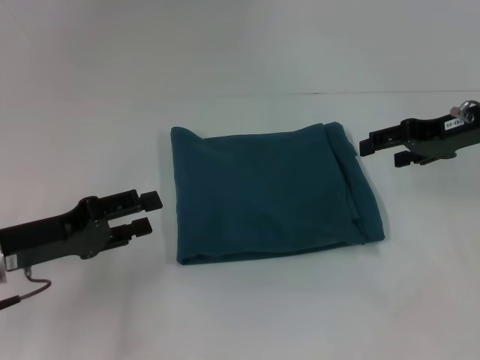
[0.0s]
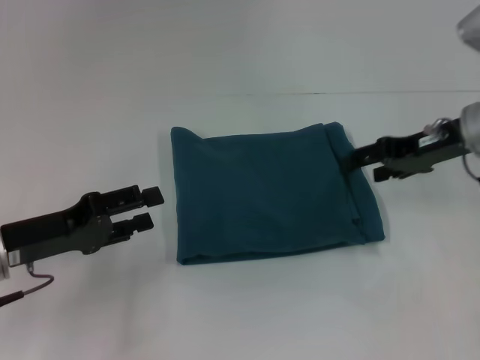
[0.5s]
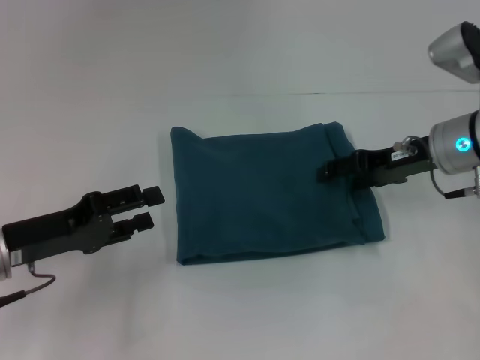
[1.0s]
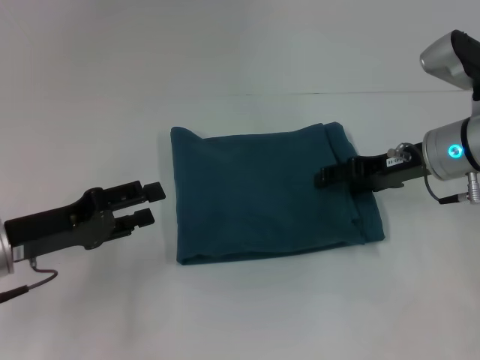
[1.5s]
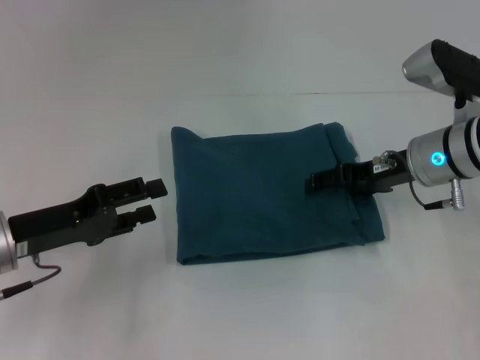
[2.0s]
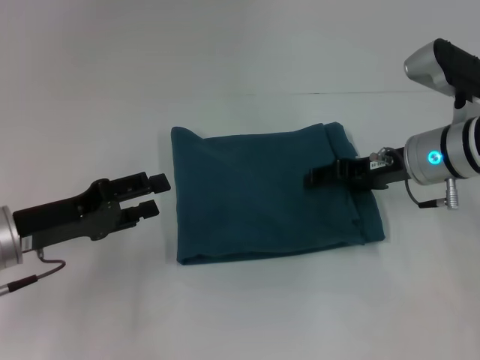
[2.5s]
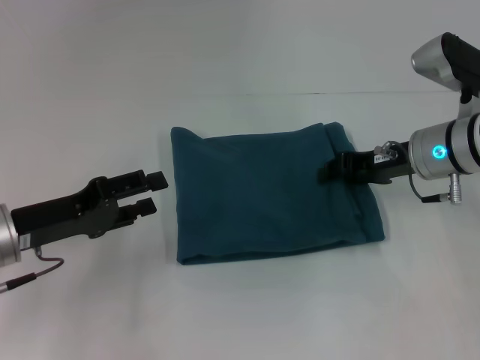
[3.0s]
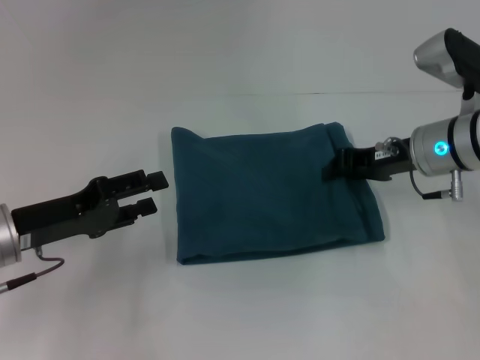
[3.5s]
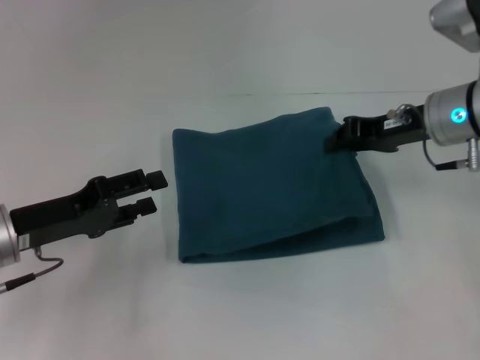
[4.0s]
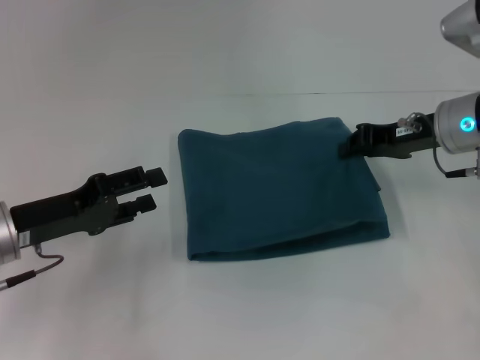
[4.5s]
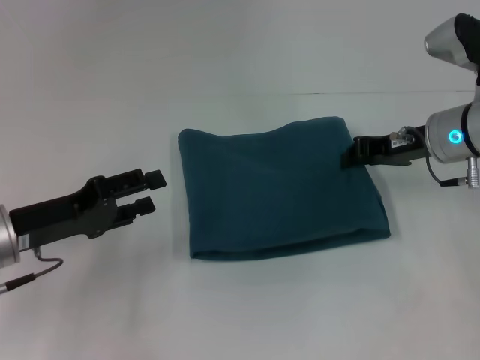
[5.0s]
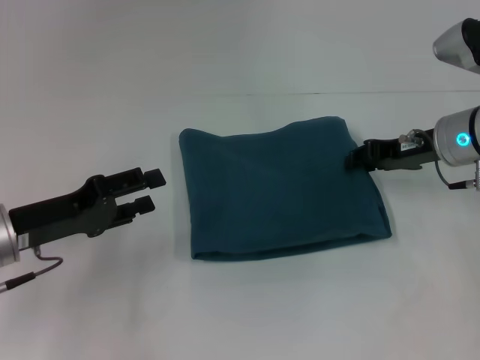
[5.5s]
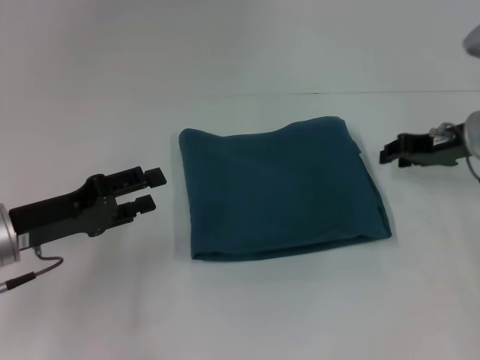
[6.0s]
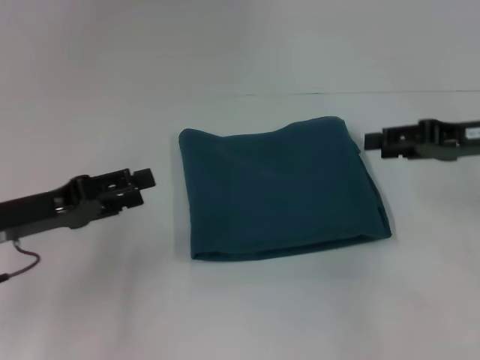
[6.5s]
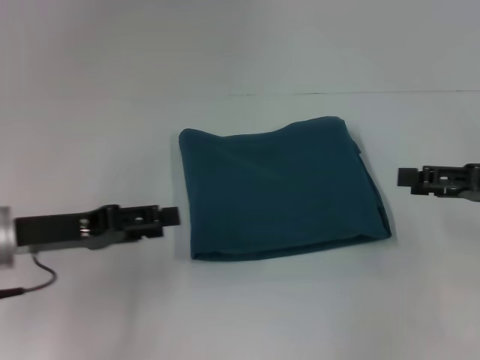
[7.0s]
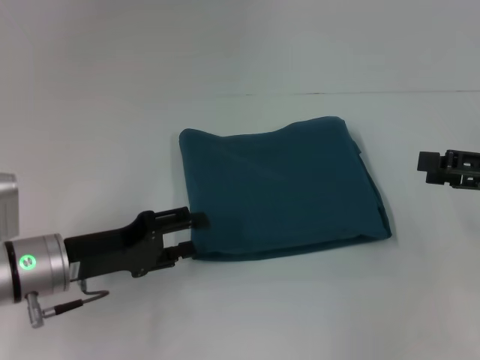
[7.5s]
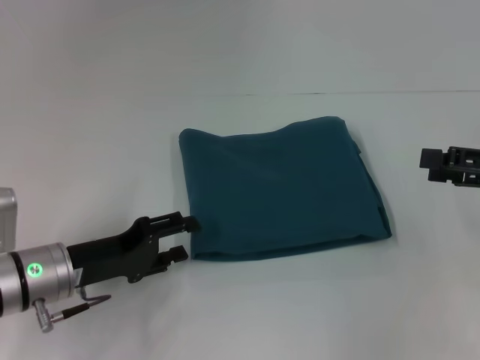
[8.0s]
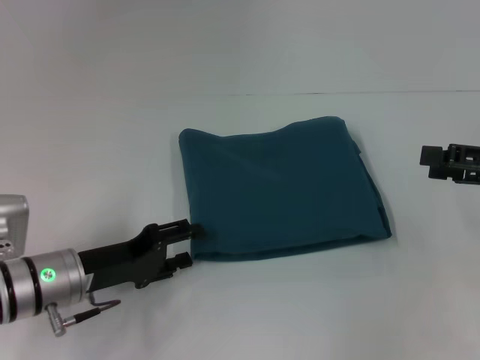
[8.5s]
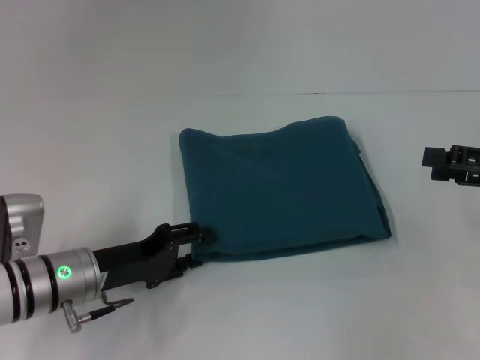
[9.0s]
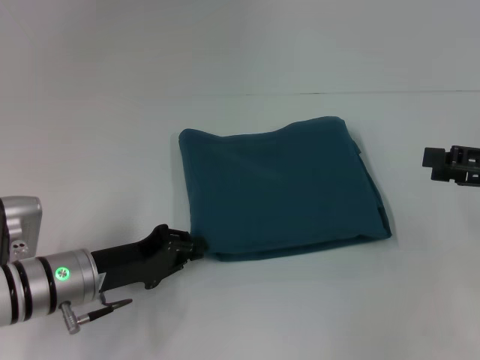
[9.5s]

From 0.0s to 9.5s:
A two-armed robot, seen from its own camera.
From 0.0s to 2.0s: The right gripper travels to the left and downward by about 10 cm.
From 2.0s to 4.0s: The right gripper closes its fingers.
From 4.0s to 5.5s: There are only small adjustments of the grippers.
From 5.5s to 7.5s: The right gripper shifts roughly 15 cm to the right and backward, and opens up.
From 7.5s to 9.5s: There are only small adjustments of the grippers.

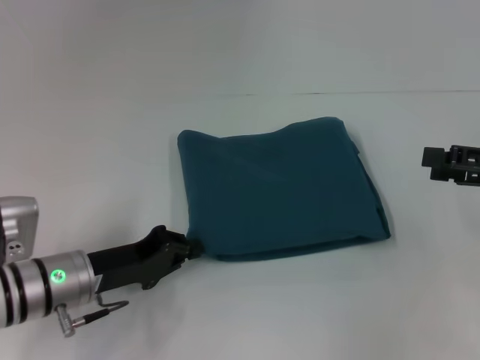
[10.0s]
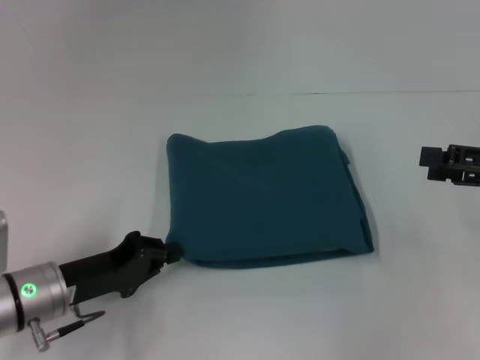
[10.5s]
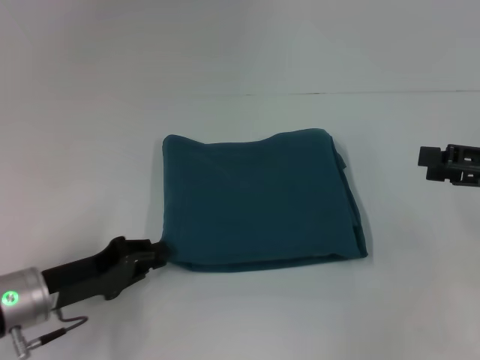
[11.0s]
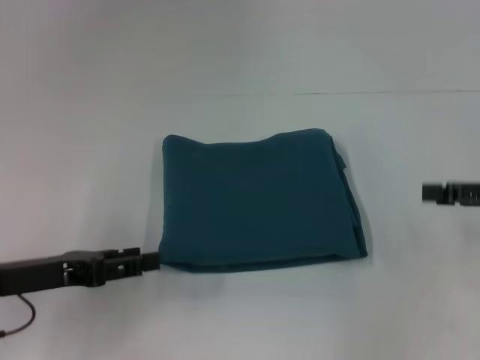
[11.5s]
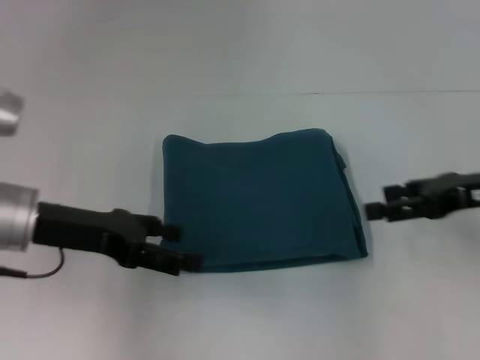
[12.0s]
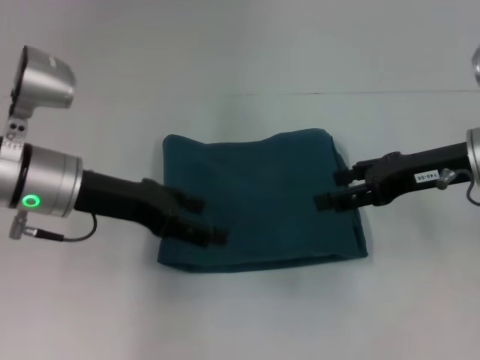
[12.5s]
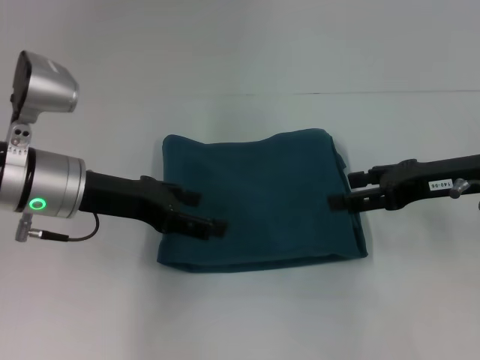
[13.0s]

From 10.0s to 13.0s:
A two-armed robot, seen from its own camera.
From 10.0s to 11.5s: The left gripper shifts about 5 cm to the left, and opens its fingers.
From 11.5s to 13.0s: The right gripper travels to the left by roughly 10 cm, while the left gripper heads forward, to the right and upward, covering approximately 15 cm, and opens.

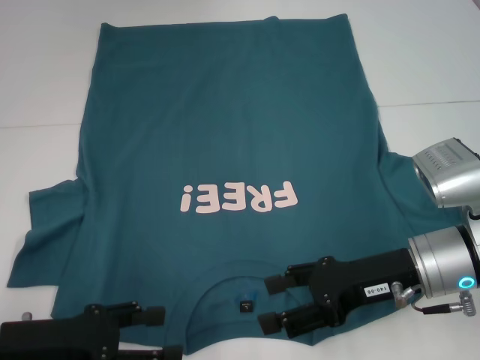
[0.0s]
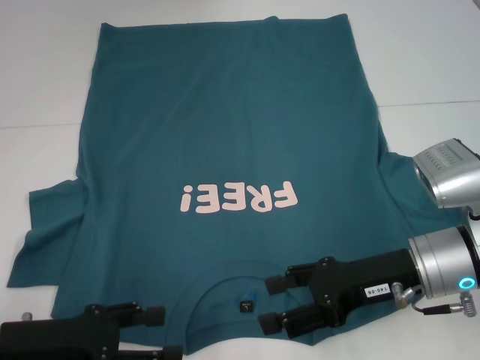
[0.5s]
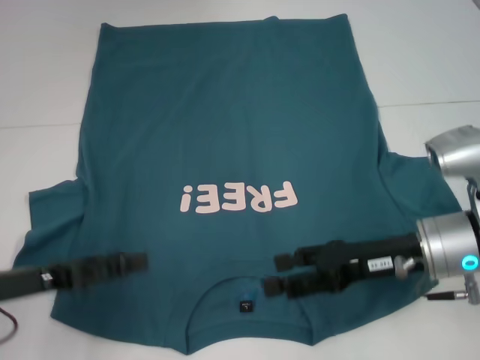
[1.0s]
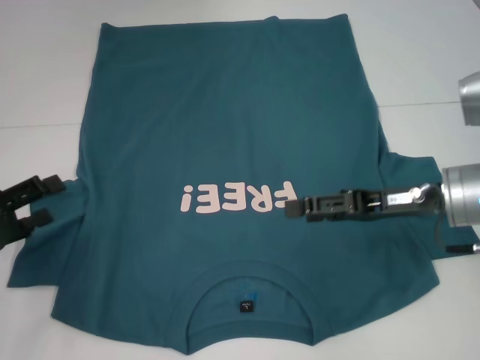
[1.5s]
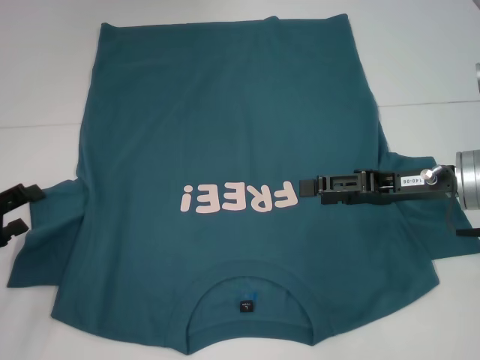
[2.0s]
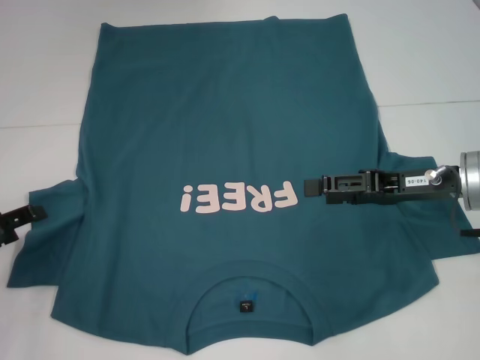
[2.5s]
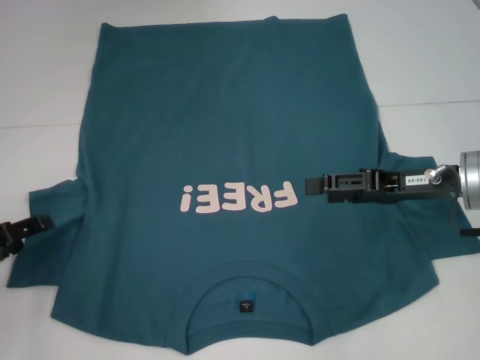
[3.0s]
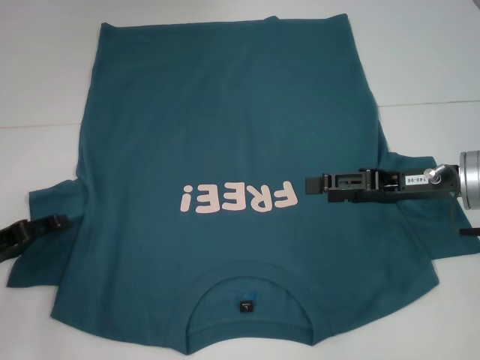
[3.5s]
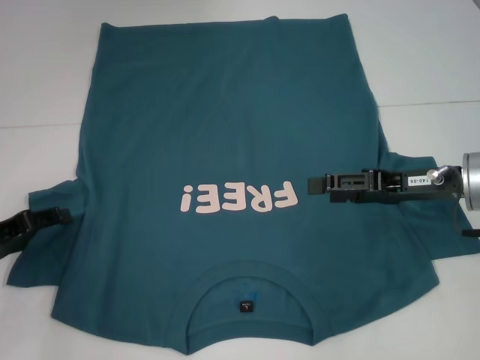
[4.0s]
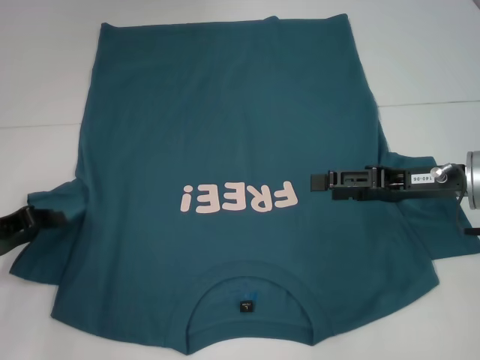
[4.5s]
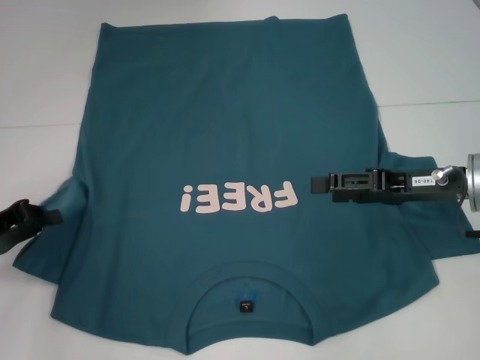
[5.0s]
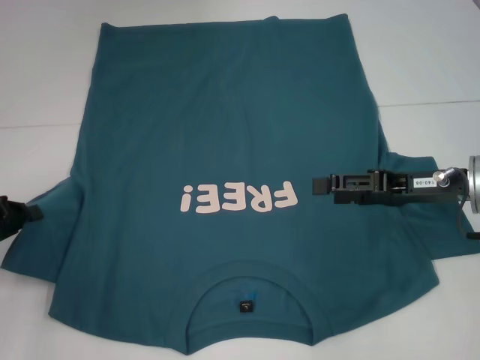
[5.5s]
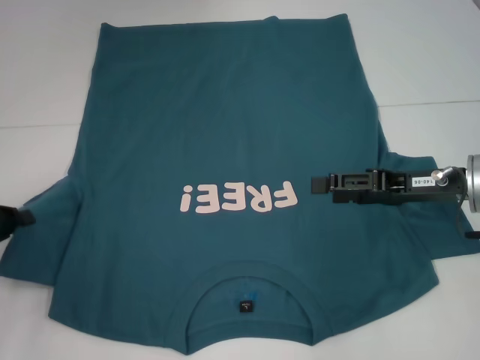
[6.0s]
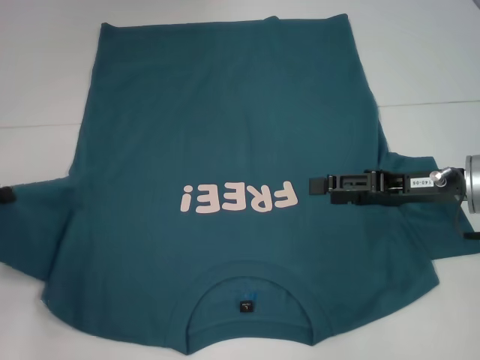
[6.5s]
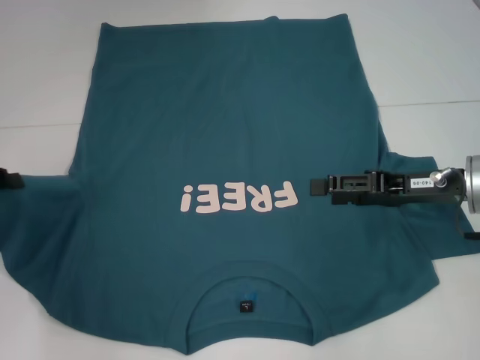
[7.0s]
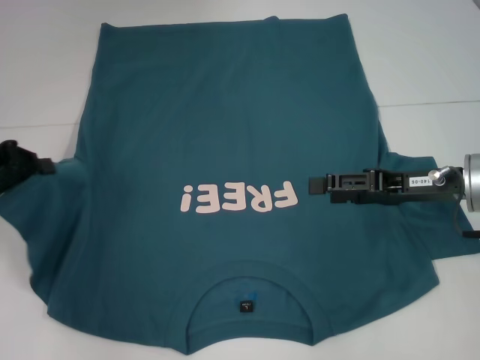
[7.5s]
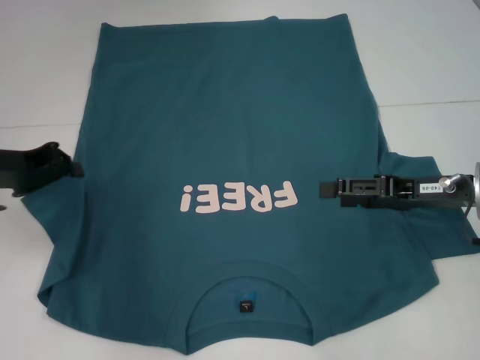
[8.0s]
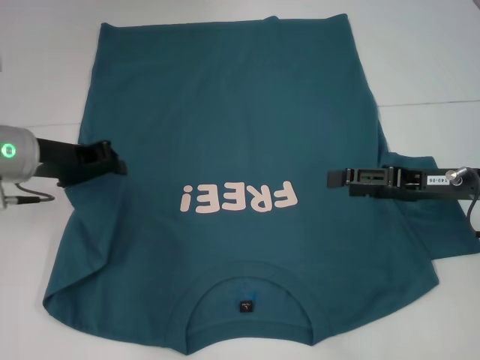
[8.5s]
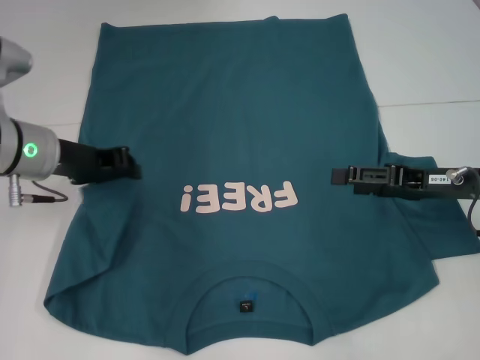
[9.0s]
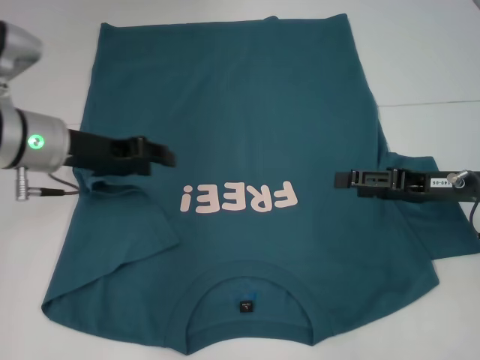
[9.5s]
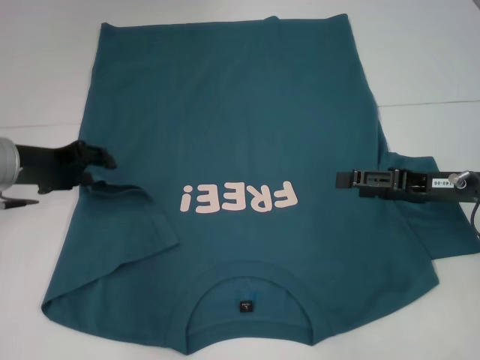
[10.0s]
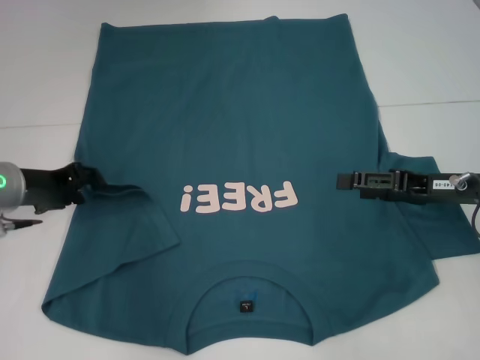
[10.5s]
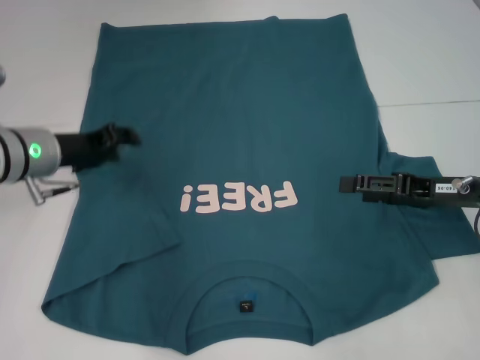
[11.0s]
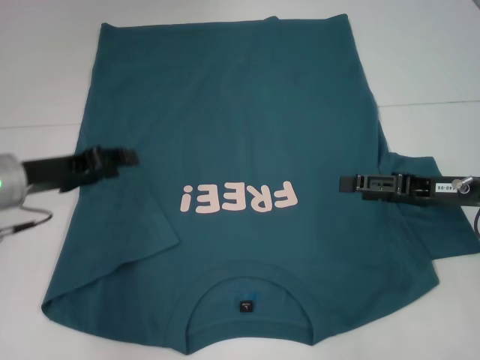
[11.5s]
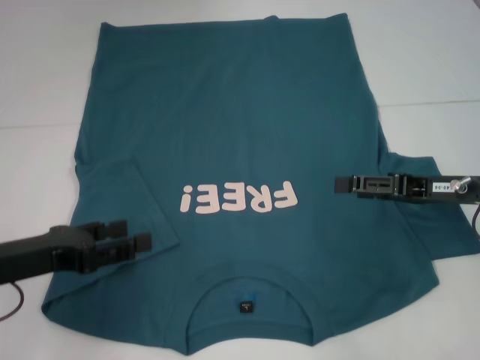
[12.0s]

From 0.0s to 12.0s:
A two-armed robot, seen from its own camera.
Step, from 0.0s to 11.0s: Fold the bottom left sleeve with your left hand.
From 0.0s to 2.0s: The left gripper moves to the left and forward, about 10 cm. The right gripper moves roughly 10 cm.
From 2.0s to 4.0s: There are only small adjustments of the grippers.
From 4.0s to 6.0s: The left gripper closes up.
From 6.0s to 8.0s: The left gripper is displaced forward, upward and to the right by approximately 10 cm.
From 8.0s to 10.0s: The left gripper reaches approximately 10 cm to the right, then returns, and opens up.
From 10.0s to 12.0s: The left gripper heads backward, covering roughly 10 cm.

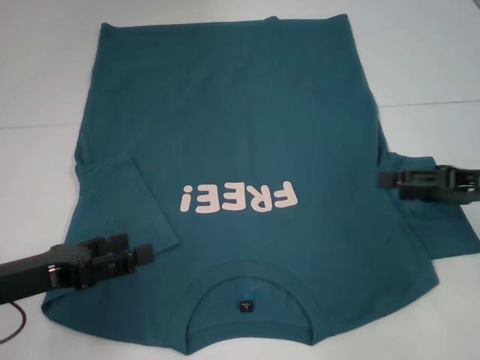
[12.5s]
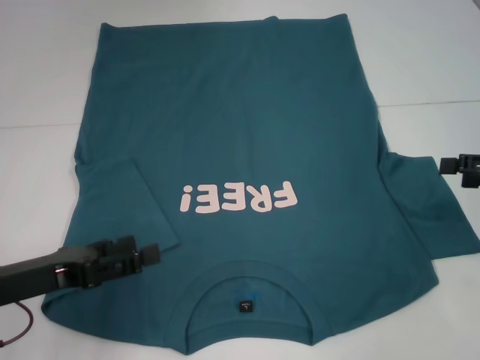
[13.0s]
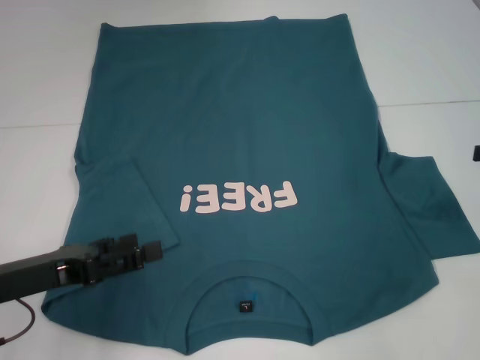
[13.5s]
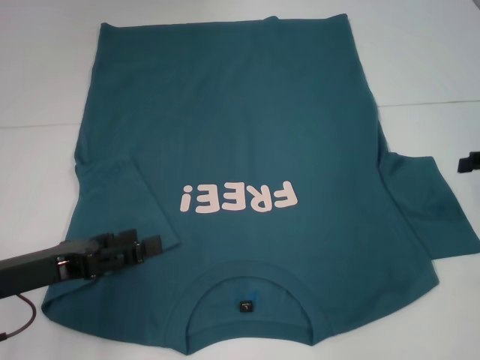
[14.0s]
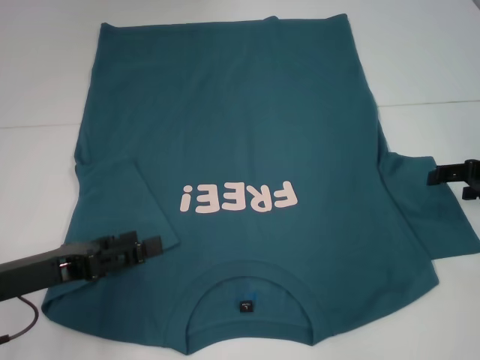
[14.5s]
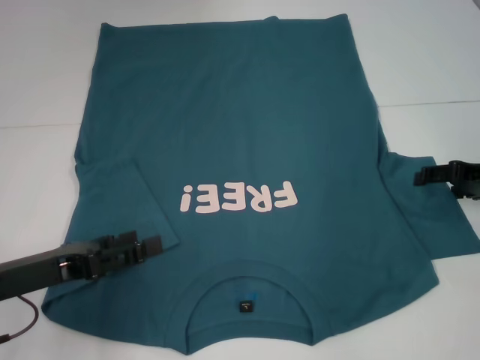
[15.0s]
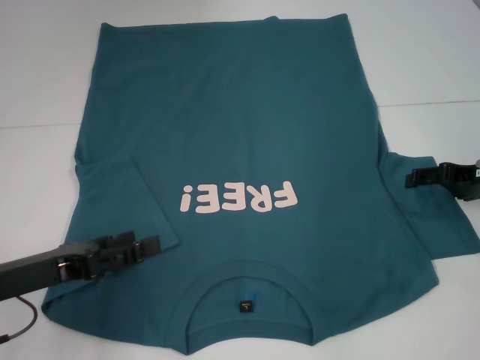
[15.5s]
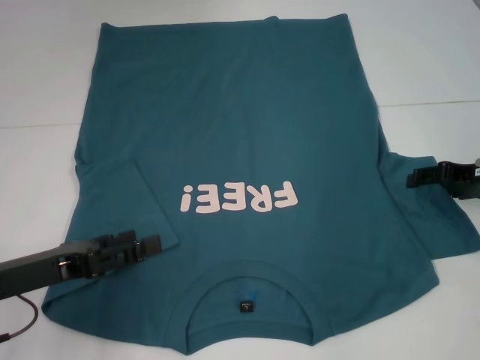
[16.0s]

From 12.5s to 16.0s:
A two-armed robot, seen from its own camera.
From 14.5s to 16.0s: The grippers make only small movements.
